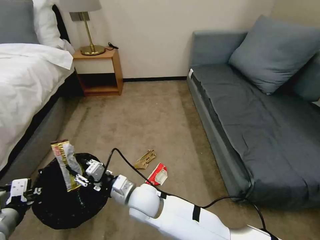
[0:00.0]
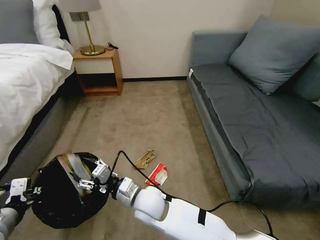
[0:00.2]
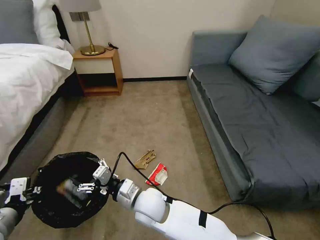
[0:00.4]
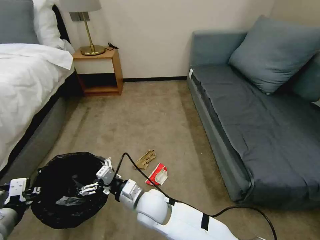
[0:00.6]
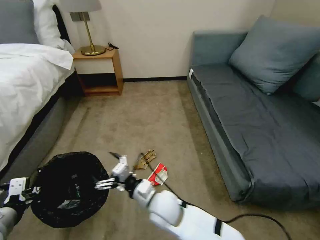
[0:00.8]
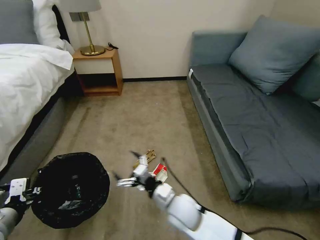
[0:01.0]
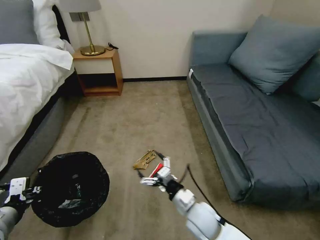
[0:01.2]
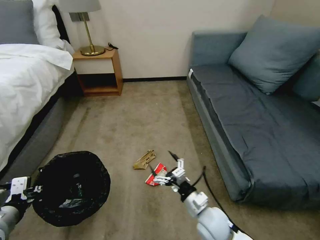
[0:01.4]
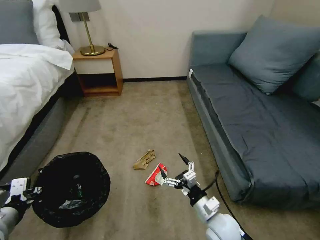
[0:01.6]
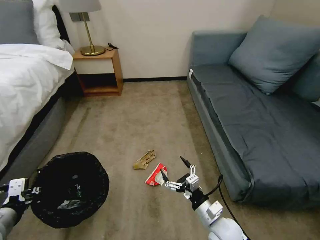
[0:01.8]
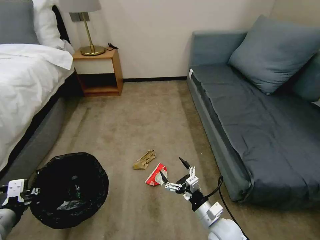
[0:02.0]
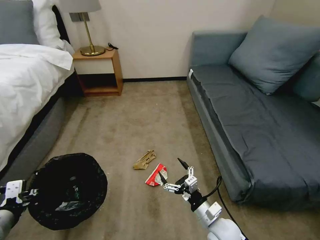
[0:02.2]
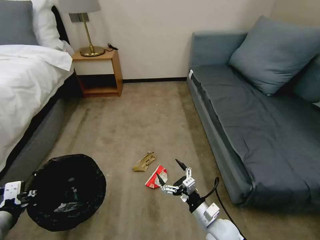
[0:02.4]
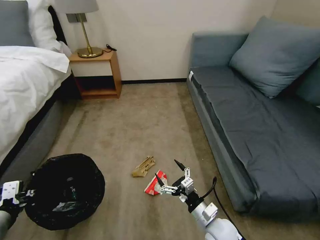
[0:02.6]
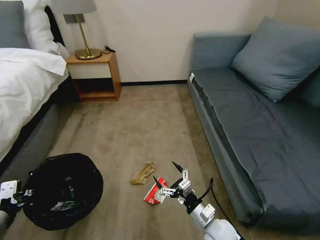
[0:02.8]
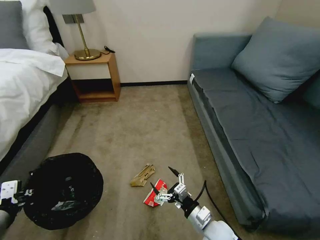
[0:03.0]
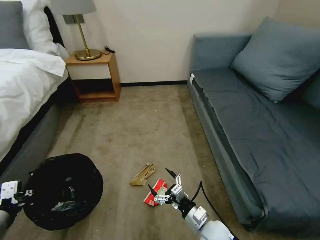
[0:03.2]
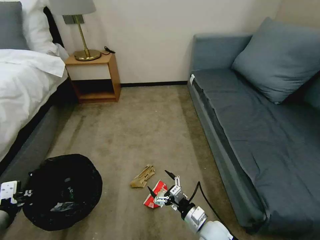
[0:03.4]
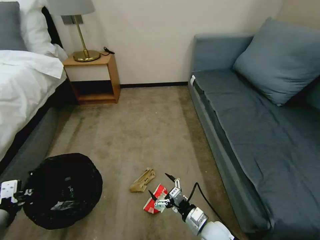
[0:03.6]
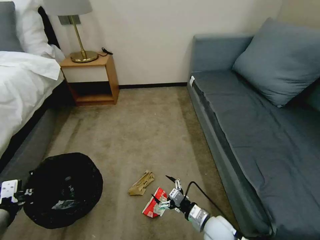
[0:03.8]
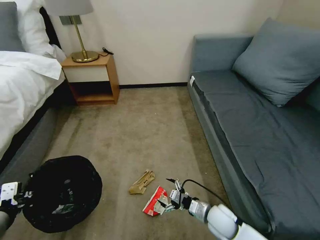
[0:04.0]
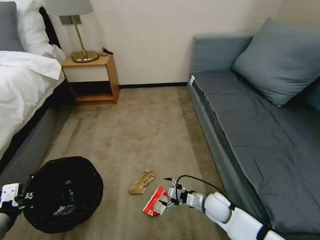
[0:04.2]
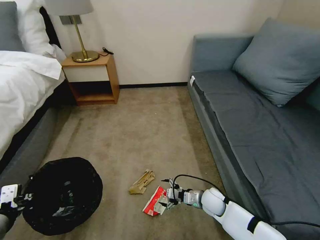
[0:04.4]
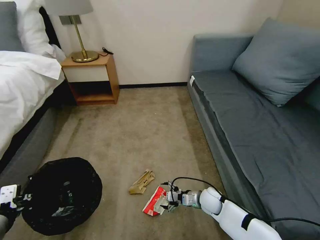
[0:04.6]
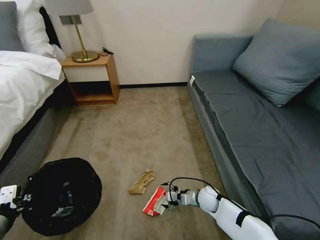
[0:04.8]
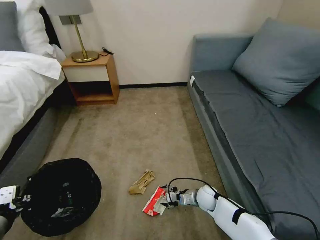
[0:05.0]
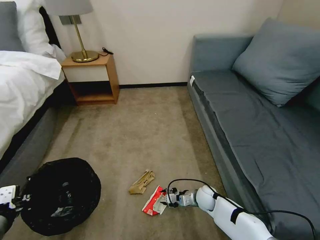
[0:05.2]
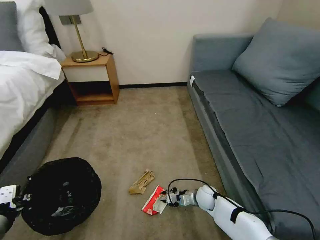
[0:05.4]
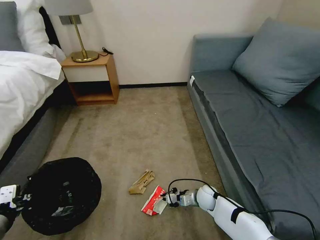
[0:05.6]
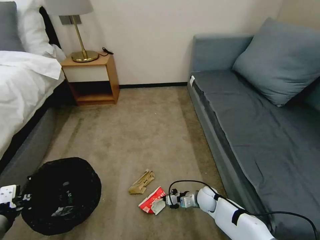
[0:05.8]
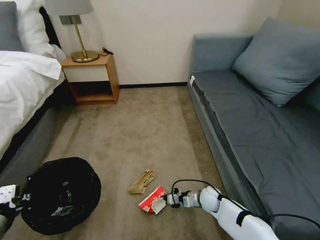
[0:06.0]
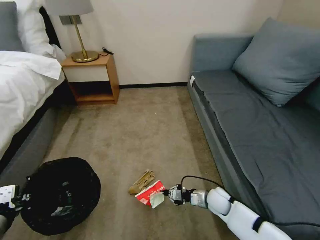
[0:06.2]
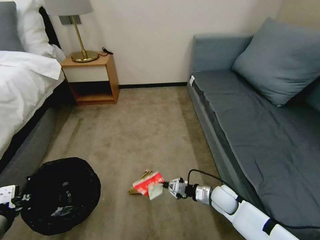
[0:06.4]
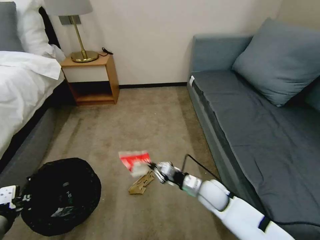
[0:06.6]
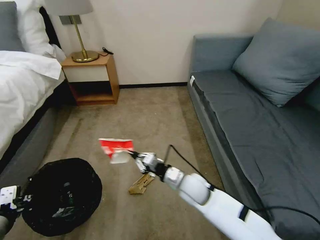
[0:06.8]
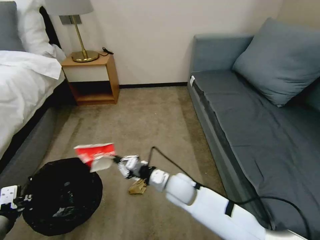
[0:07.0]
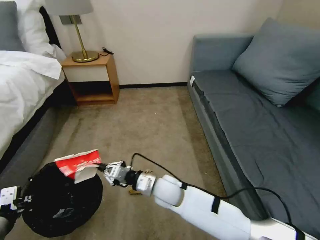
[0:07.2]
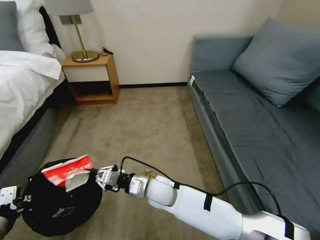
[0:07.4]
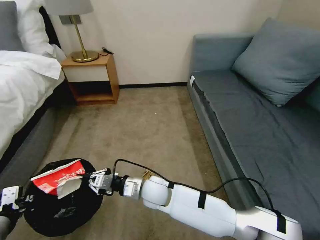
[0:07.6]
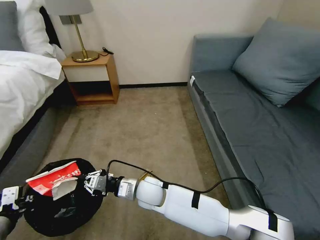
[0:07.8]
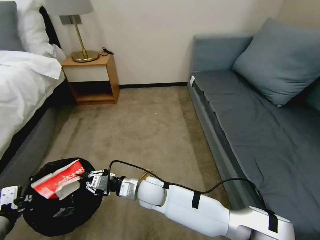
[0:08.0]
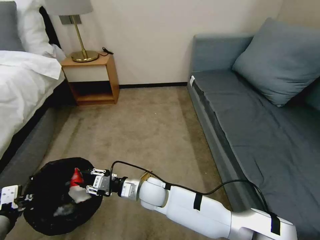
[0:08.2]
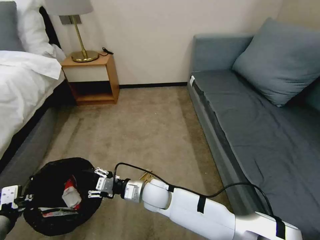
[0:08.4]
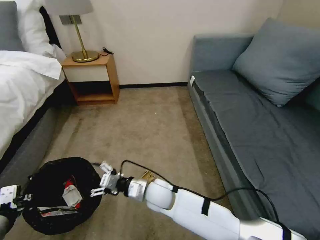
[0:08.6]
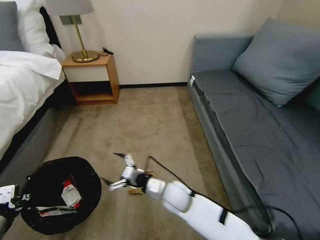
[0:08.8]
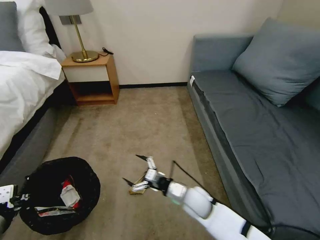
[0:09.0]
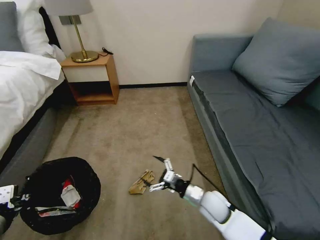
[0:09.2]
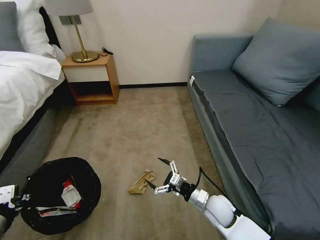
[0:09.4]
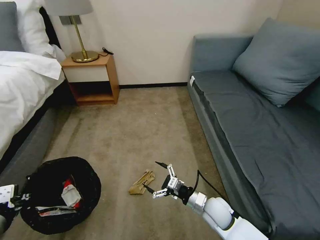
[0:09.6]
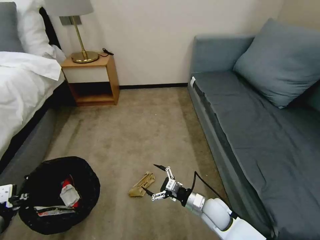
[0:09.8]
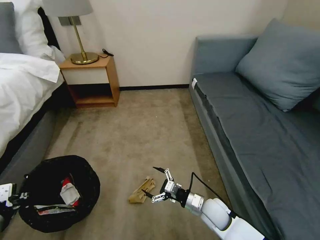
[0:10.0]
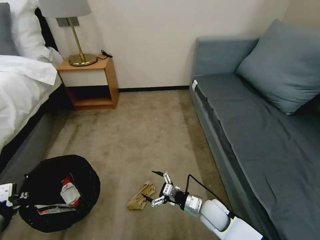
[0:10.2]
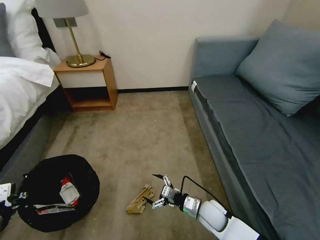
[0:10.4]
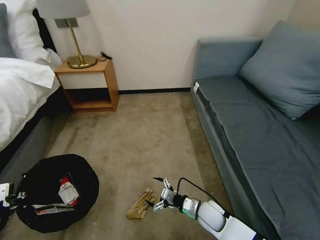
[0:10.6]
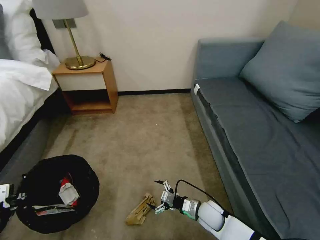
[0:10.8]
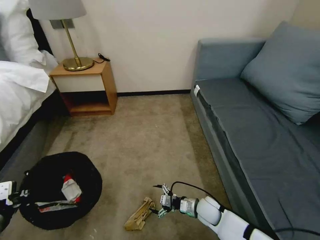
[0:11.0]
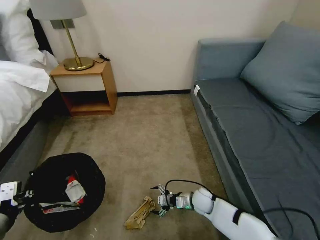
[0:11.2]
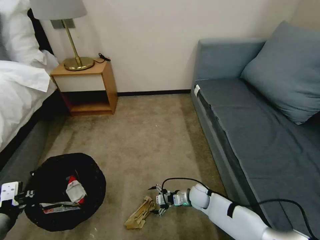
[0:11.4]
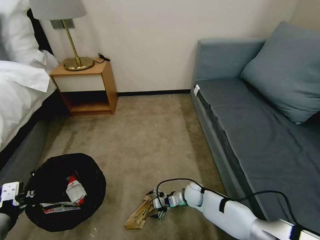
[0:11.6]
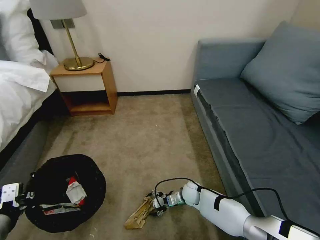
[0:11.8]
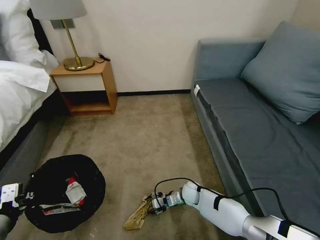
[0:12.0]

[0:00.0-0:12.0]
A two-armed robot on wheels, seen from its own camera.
Task of the whole recording: Pick up the trash bin, then pick up the garbage on the floor and place it into the trash bin.
0:00.0 to 0:01.6: The right gripper is displaced to the right by approximately 25 cm, and opens its fingers.
0:03.0 to 0:04.4: The right gripper moves forward and downward, approximately 15 cm.
0:04.4 to 0:06.0: The right gripper closes up.
0:06.0 to 0:07.6: The right gripper travels to the left and upward by roughly 30 cm.
0:07.6 to 0:09.0: The right gripper heads to the right, covering roughly 15 cm, and opens its fingers.
0:09.0 to 0:10.4: The right gripper is displaced to the right and downward by approximately 10 cm.
0:10.4 to 0:12.0: The right gripper moves forward and downward, approximately 15 cm, and closes.

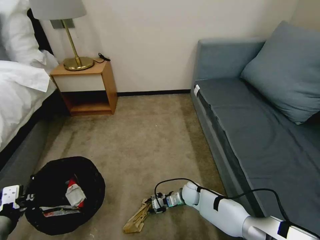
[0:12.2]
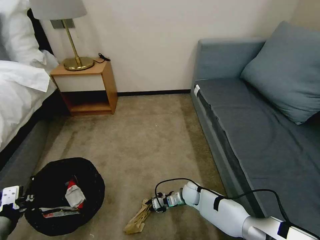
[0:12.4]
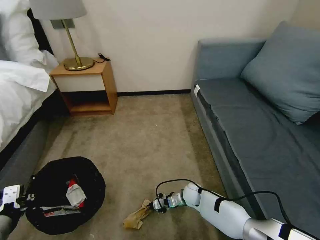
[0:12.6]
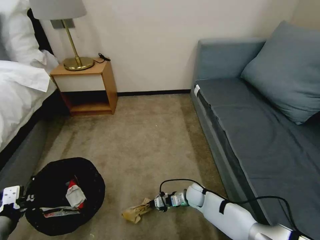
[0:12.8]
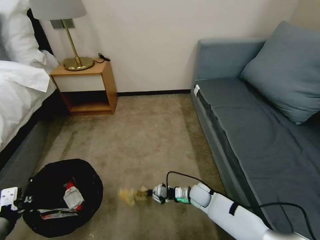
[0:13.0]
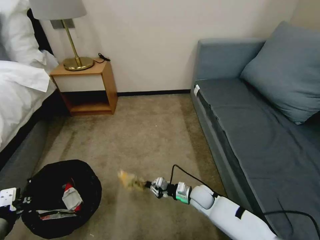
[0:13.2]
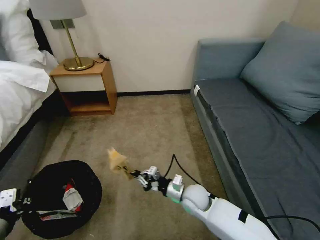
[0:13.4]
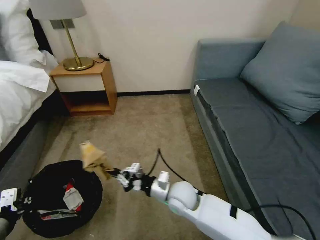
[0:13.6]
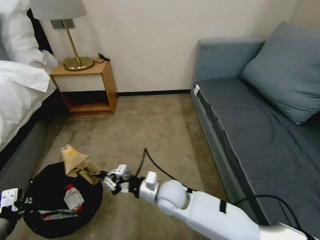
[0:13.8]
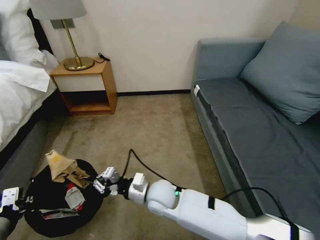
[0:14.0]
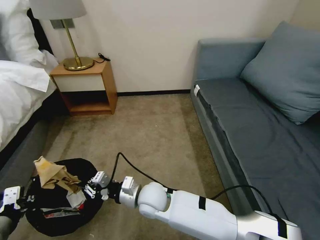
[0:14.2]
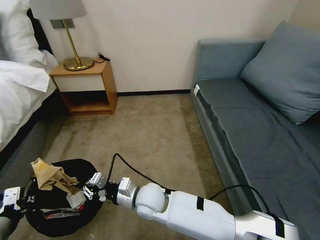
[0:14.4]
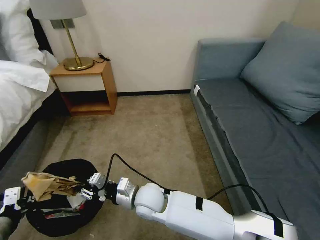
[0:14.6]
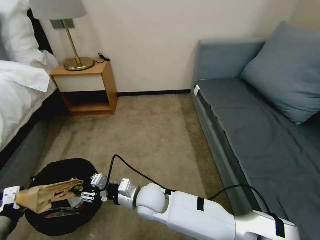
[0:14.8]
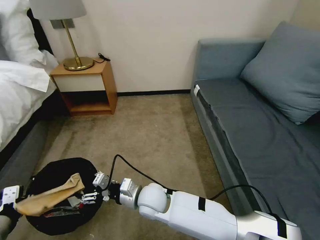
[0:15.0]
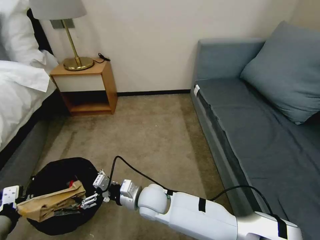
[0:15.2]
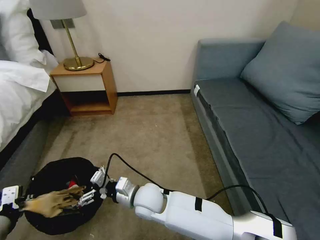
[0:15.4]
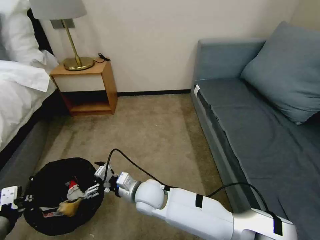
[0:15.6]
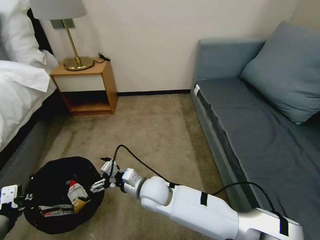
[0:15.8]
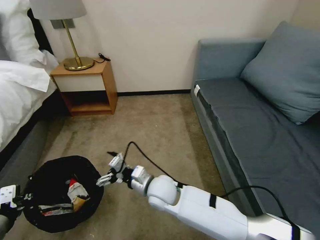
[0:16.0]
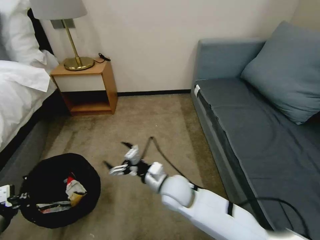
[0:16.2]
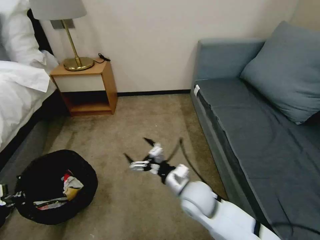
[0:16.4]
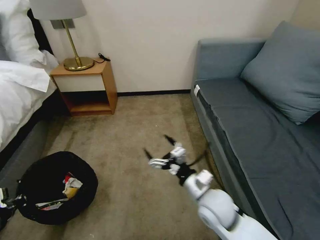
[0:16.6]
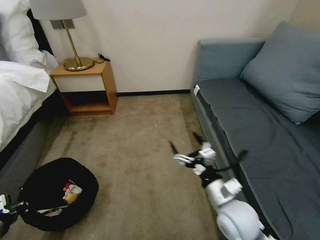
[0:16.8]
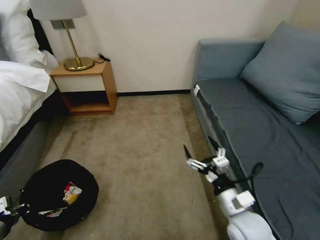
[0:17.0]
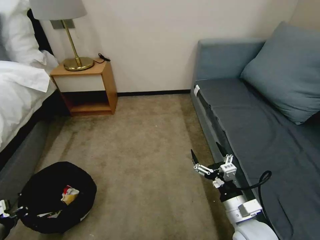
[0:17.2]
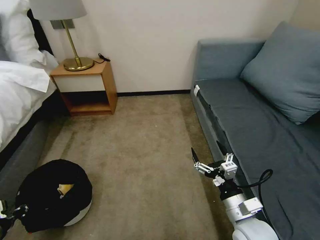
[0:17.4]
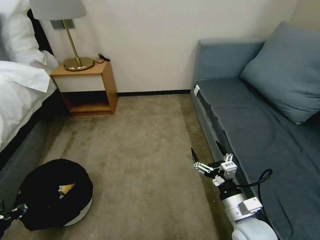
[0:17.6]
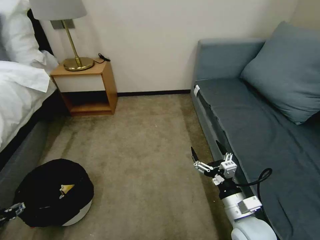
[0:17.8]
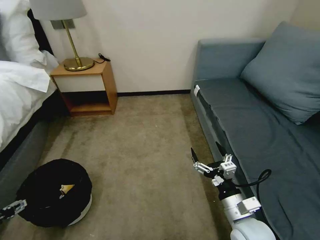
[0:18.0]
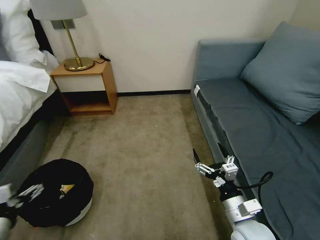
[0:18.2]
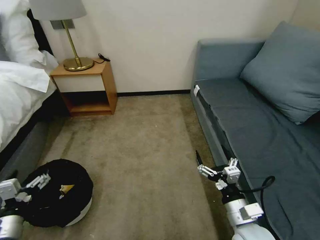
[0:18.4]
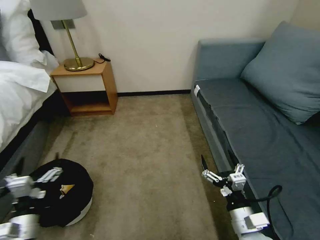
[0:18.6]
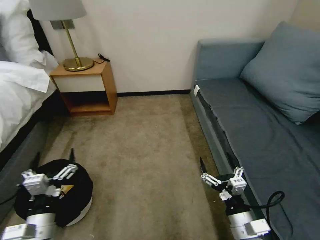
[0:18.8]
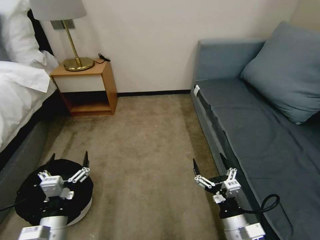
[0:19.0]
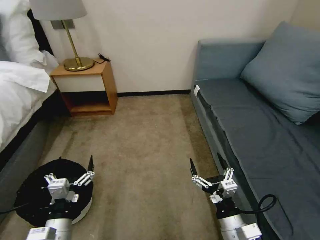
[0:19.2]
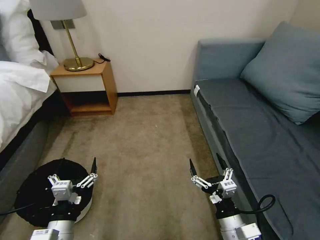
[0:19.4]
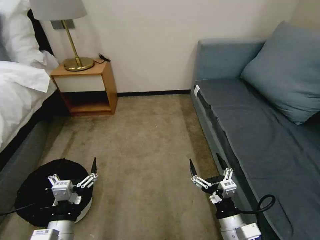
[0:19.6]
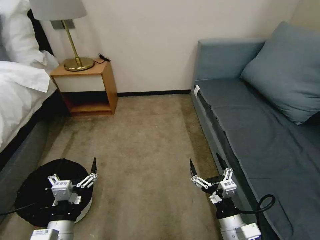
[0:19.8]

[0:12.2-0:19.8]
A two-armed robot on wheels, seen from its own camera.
Task of the whole recording: Pick up the trash bin, then pick up the garbage on the floor and place it into the trash bin.
0:12.2 to 0:13.8: The right gripper heads upward and to the left, covering roughly 25 cm, and closes its fingers.
0:13.8 to 0:15.2: The right gripper moves to the left, approximately 5 cm, and opens its fingers.
0:15.2 to 0:16.8: The right gripper shifts roughly 25 cm to the right, while the left gripper heads to the left and downward, covering some 10 cm.
0:16.8 to 0:18.2: The right gripper changes place by roughly 5 cm. The left gripper ends up roughly 5 cm from where it was, and opens its fingers.
0:18.2 to 0:19.8: The left gripper heads to the right, covering approximately 20 cm; the right gripper changes place by about 5 cm.
